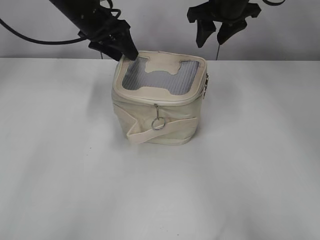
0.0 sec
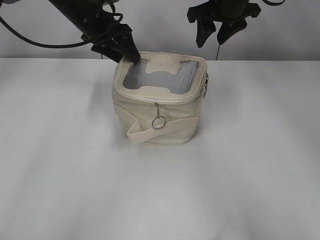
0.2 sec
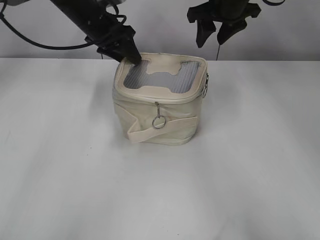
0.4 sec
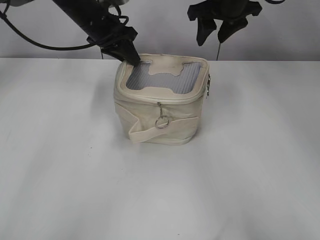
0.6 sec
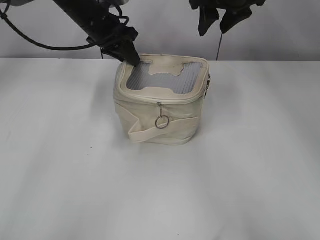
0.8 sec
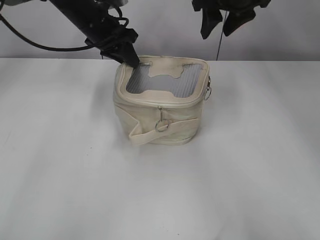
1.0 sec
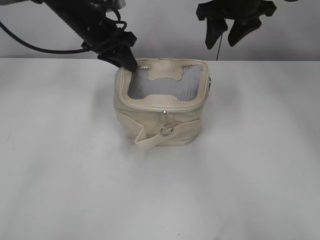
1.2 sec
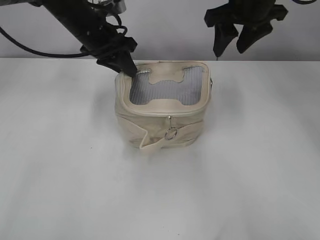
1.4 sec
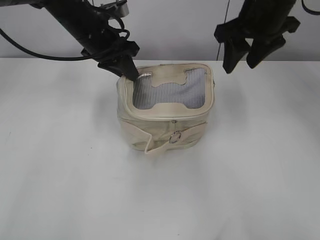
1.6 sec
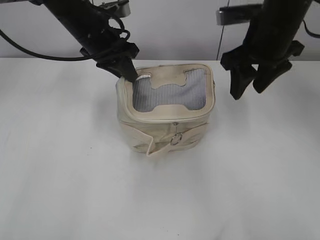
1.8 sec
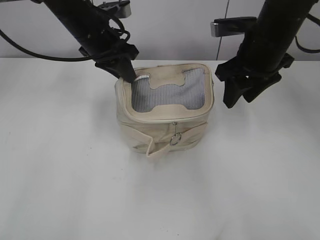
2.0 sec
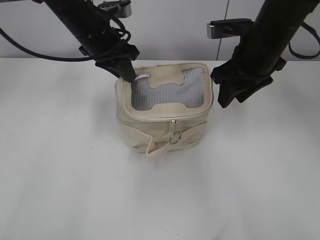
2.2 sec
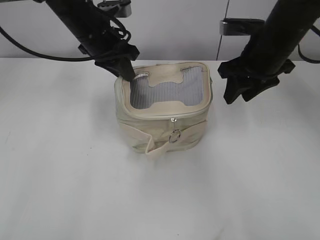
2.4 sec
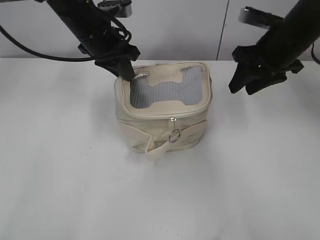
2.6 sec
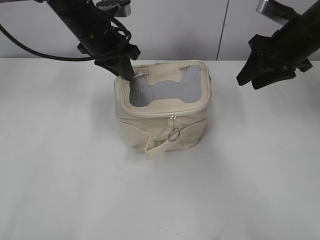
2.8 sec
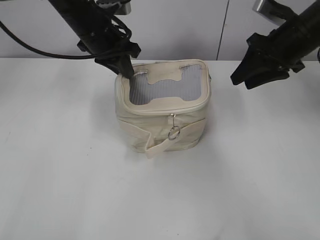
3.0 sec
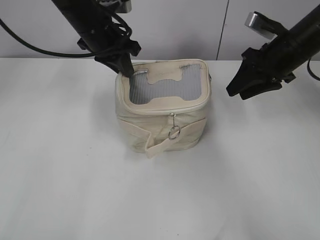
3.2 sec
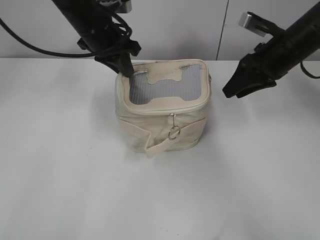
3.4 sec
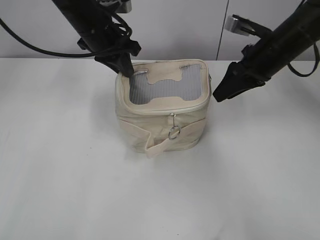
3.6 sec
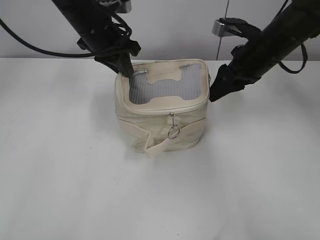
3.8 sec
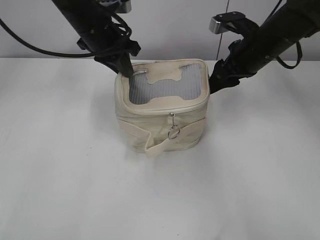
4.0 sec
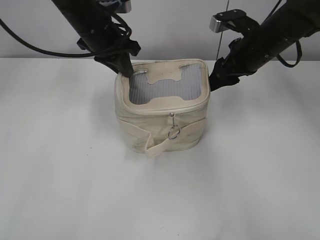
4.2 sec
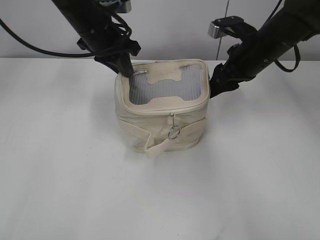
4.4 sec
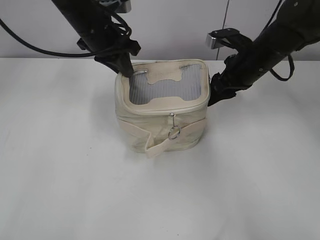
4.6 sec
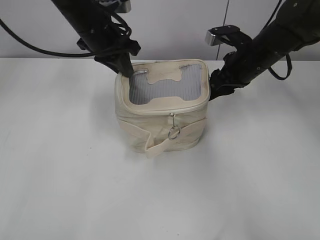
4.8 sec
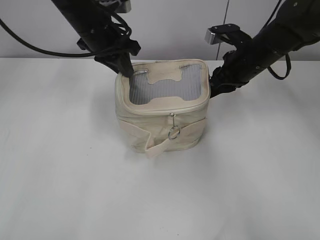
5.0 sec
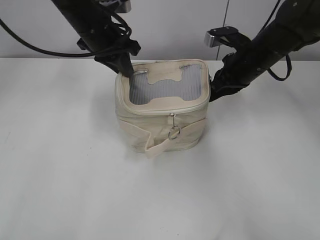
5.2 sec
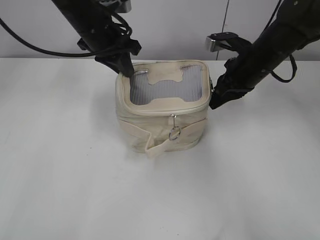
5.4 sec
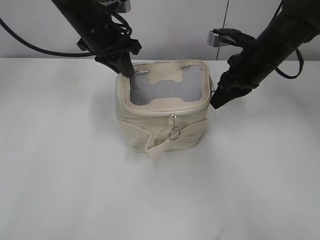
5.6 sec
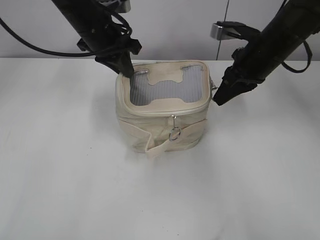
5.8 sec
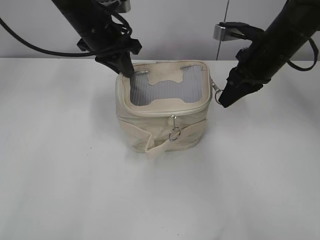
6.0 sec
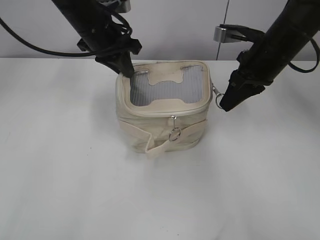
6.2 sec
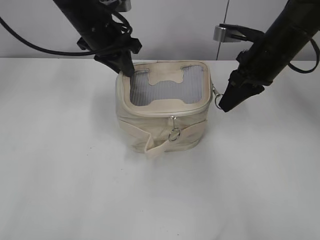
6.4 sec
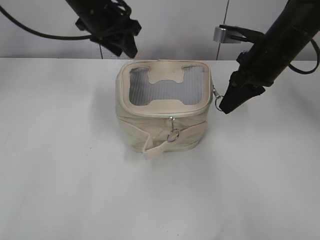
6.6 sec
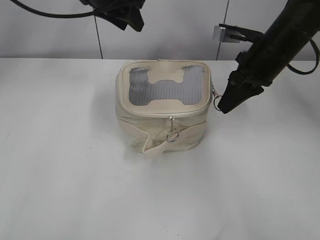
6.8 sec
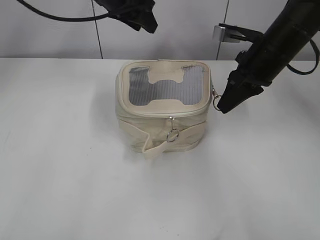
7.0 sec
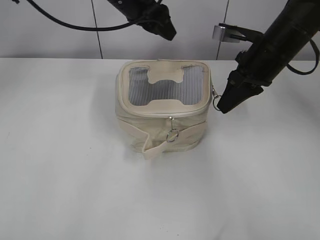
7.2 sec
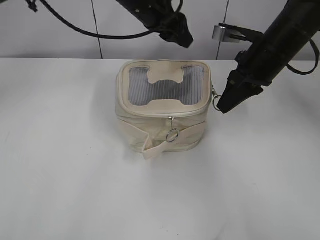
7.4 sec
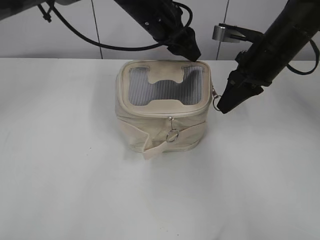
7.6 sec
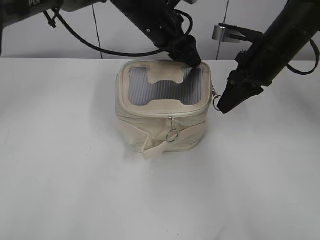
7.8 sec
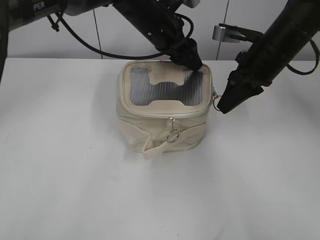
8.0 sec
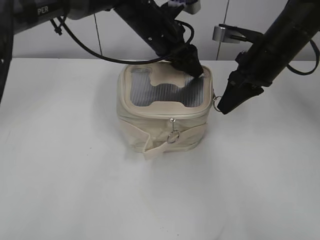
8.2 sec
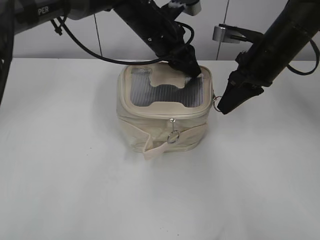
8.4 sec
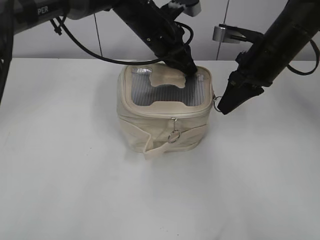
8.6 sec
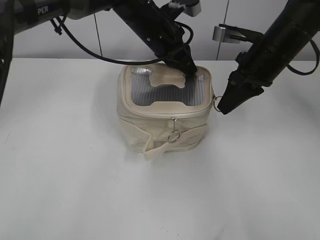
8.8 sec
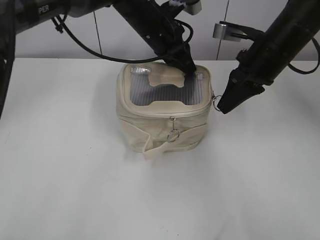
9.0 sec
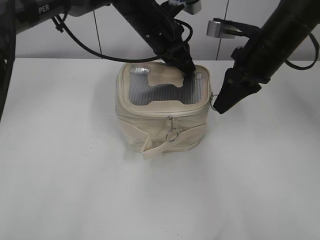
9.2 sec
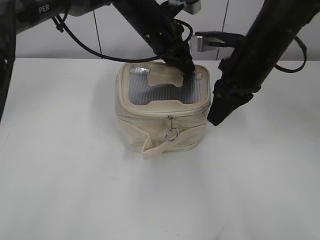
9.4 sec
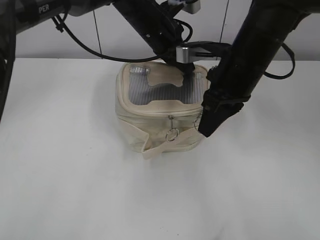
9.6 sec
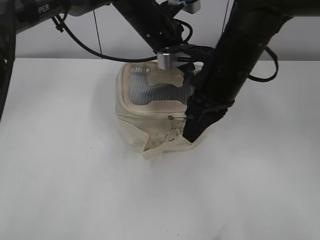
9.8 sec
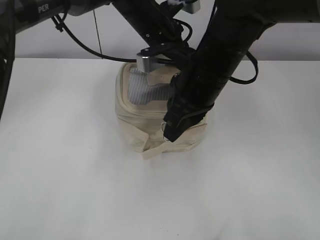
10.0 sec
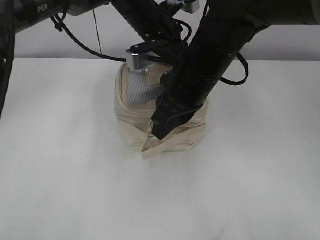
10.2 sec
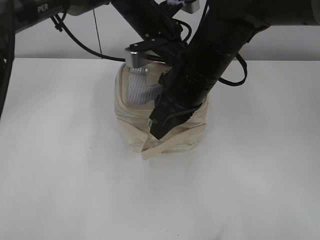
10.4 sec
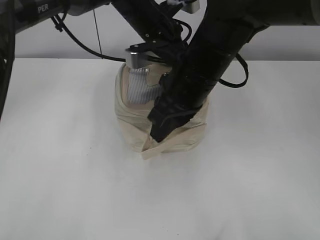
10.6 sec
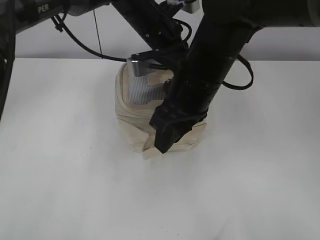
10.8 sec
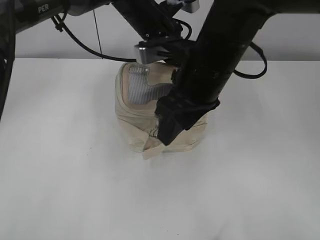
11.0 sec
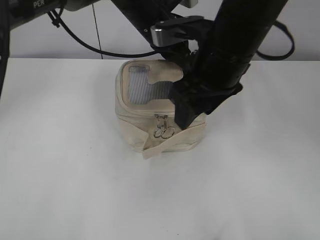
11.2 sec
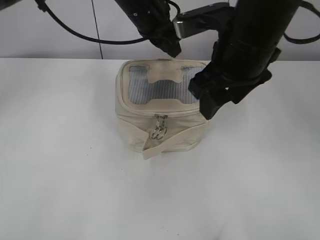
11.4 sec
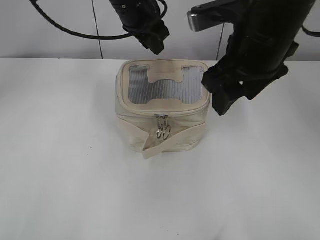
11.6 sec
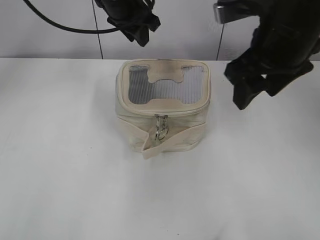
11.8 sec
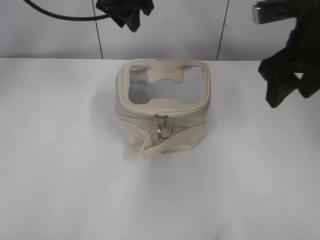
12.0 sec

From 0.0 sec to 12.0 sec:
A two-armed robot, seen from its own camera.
Step, from 0.0 sec to 10.8 sec: Zip up the bag with your right hand.
Step, from 11.0 sec to 11.4 sec: Hold the bag with your left hand.
From 0.0 sec to 1.6 sec: The right gripper moves backward, roughly 10 cm, while the left gripper moves backward, some 5 cm, and closes.
From 1.6 sec to 3.0 sec: The right gripper is displaced to the right and downward by about 10 cm.
From 3.0 sec to 4.4 sec: The right gripper moves to the left, approximately 5 cm.
From 4.4 sec to 6.0 sec: The right gripper closes its fingers.
From 6.0 sec to 7.6 sec: The left gripper moves to the right, about 10 cm, and opens up.
From 7.6 sec to 9.0 sec: The left gripper closes up.
From 9.0 sec to 10.4 sec: The right gripper travels to the left and backward by approximately 15 cm.
From 10.4 sec to 12.0 sec: The left gripper goes approximately 10 cm upward and to the left, and opens; the right gripper moves to the right and upward, about 15 cm, and opens up.

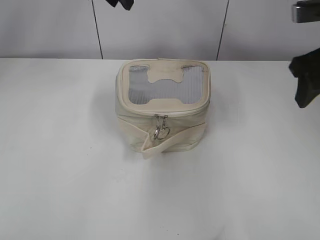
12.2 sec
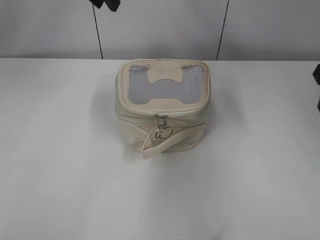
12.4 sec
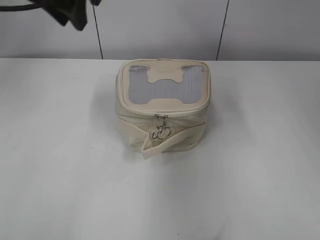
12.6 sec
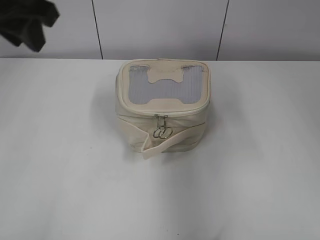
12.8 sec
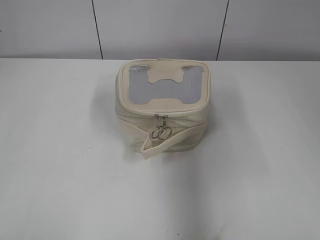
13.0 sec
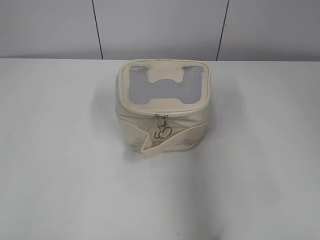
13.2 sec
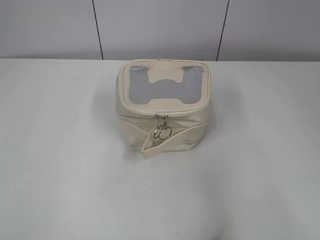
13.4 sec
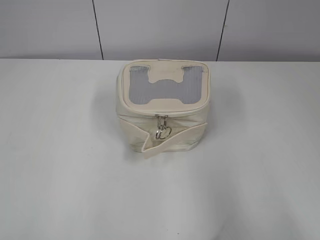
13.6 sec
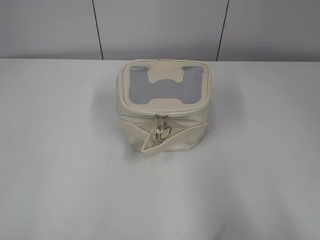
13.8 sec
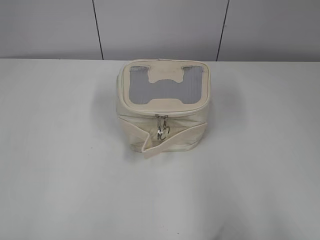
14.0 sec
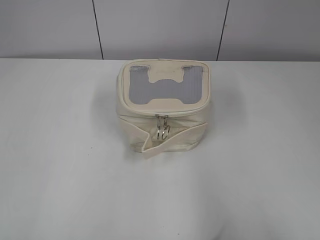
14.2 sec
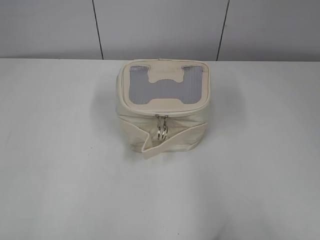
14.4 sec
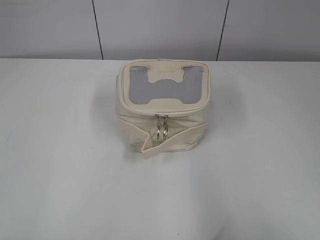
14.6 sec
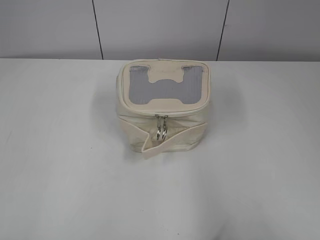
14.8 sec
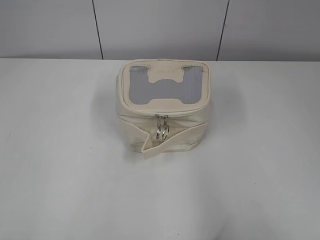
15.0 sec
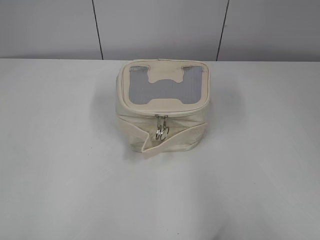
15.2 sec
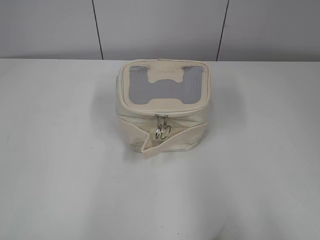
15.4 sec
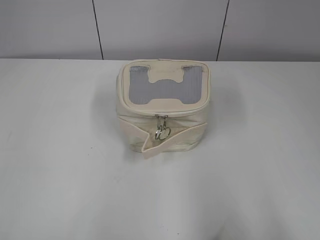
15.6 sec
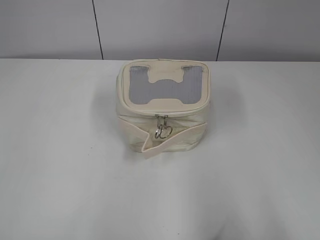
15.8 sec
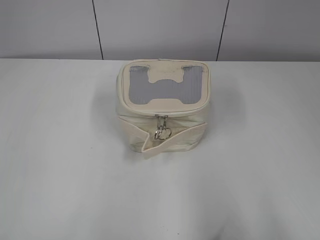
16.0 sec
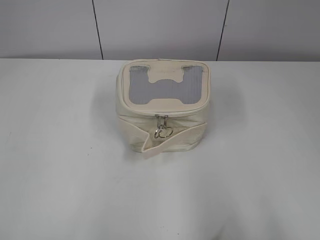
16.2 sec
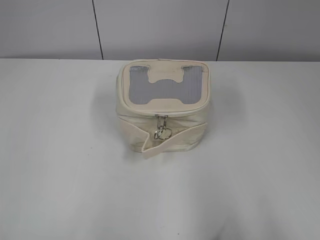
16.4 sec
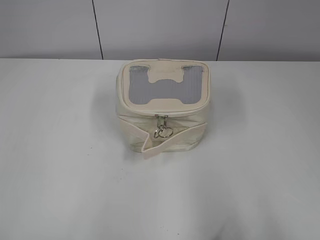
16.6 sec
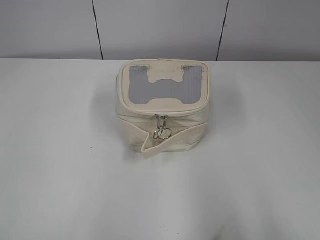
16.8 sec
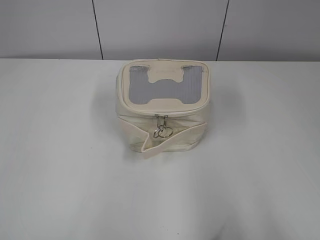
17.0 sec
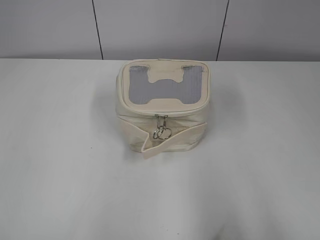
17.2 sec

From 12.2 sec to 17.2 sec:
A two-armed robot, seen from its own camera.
From 12.2 sec to 13.8 sec: The right gripper is displaced backward by some 30 cm; the left gripper travels backward and to the left by some 50 cm.
From 15.6 sec to 17.2 sec: Both grippers stay about where they are.

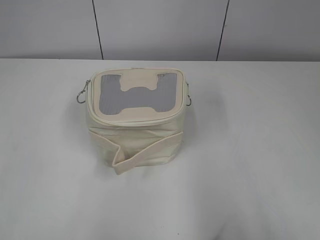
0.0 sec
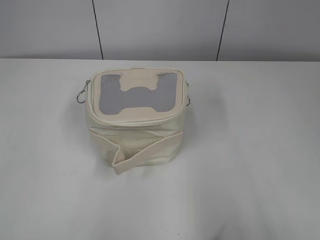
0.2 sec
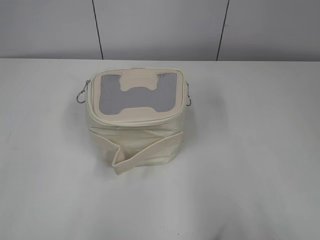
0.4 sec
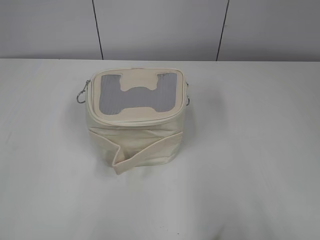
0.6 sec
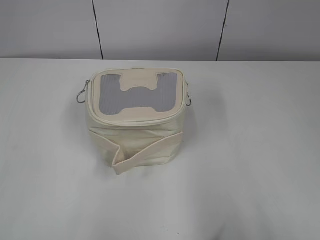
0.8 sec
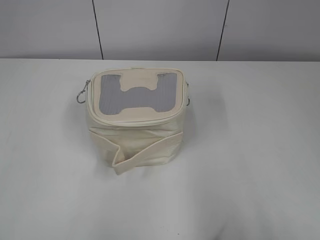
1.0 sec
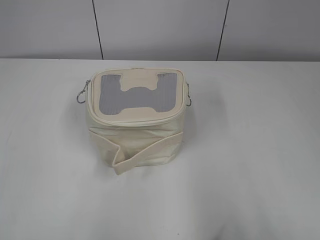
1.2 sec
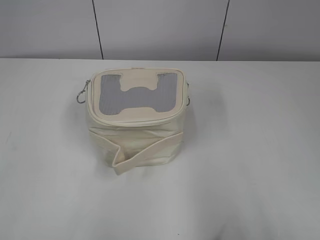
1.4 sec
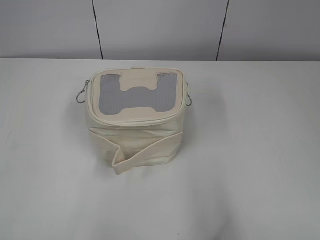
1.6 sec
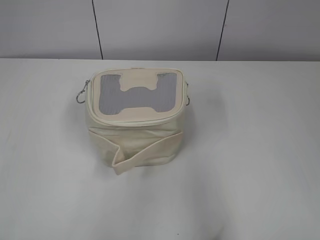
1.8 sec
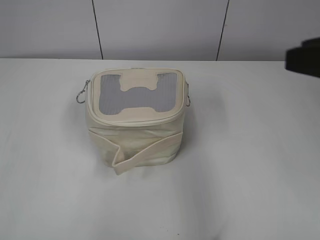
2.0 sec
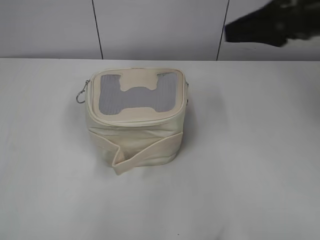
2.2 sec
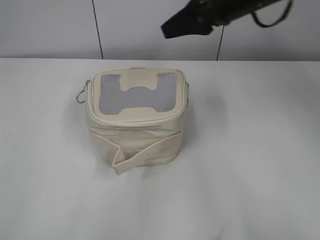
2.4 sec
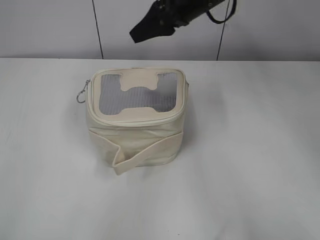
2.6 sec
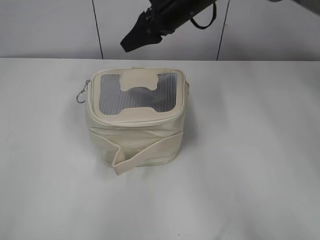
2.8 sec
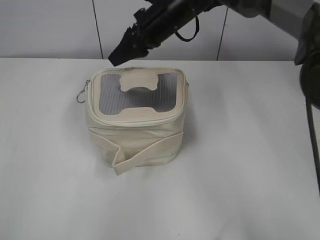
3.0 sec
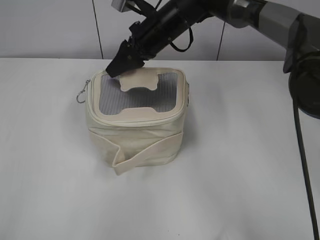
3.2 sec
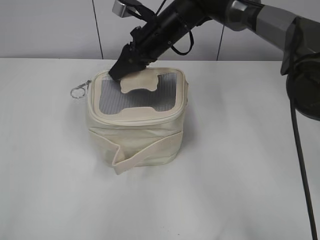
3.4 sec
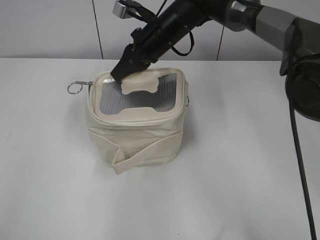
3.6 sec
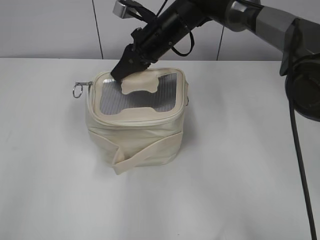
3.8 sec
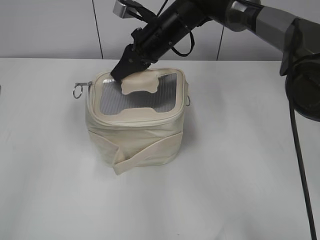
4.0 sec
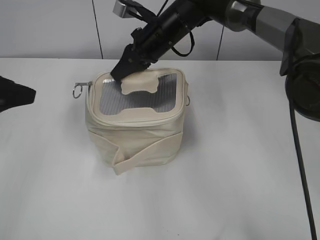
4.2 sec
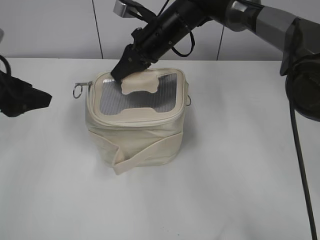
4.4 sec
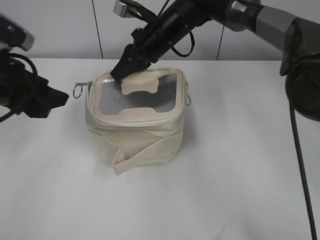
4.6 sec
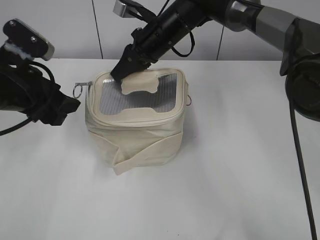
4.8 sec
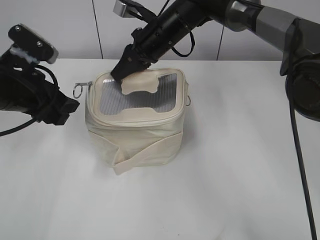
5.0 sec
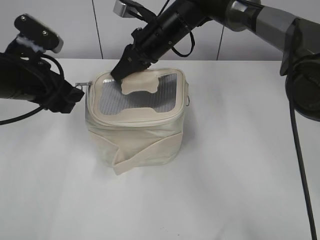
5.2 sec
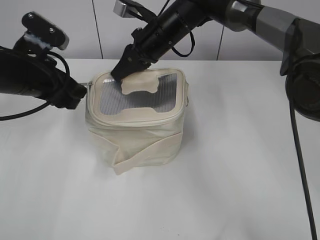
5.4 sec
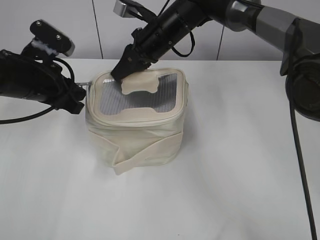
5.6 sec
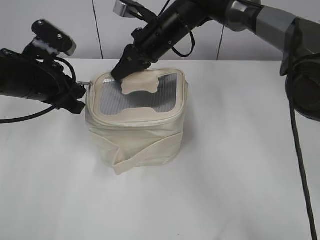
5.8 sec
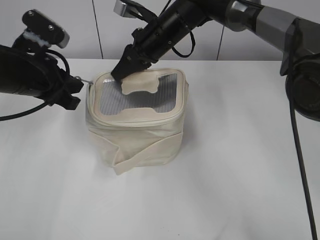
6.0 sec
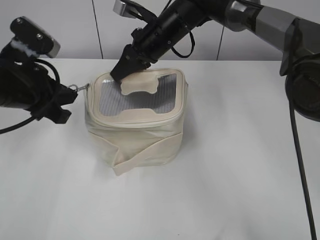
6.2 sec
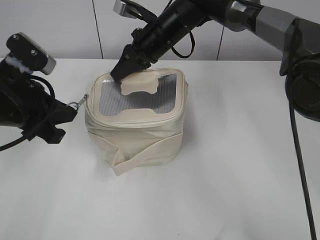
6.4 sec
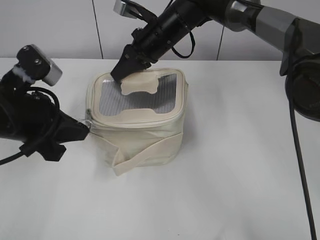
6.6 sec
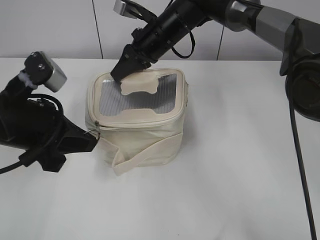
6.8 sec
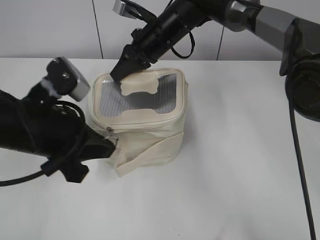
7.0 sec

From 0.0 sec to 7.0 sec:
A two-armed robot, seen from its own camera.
From 1.4 sec to 2.8 sec: The right gripper heads forward and to the left, covering some 50 cm.
From 2.8 sec to 4.2 sec: The left gripper shifts about 20 cm forward, and opens up, while the right gripper moves downward, some 5 cm, and closes its fingers.
From 4.2 sec to 5.6 sec: The left gripper goes about 10 cm forward, to the right and downward, and closes its fingers.
From 5.6 sec to 7.0 sec: The left gripper is displaced backward by roughly 10 cm, and closes.
